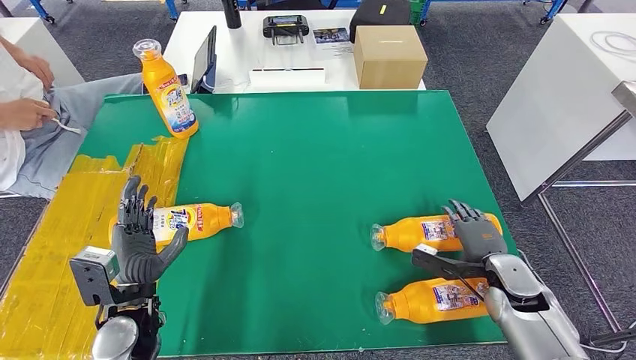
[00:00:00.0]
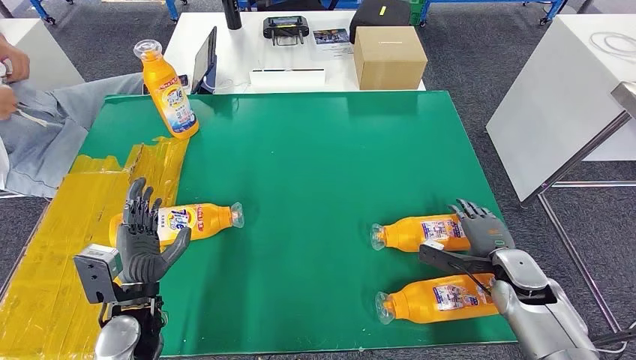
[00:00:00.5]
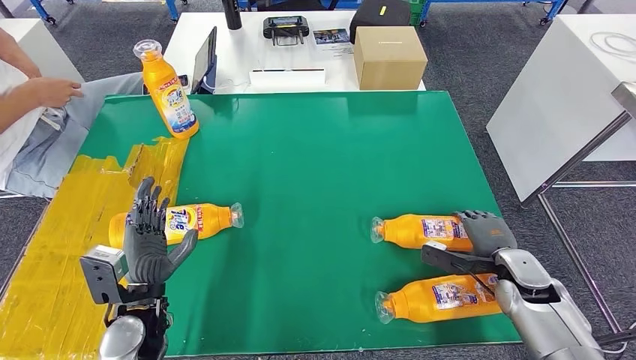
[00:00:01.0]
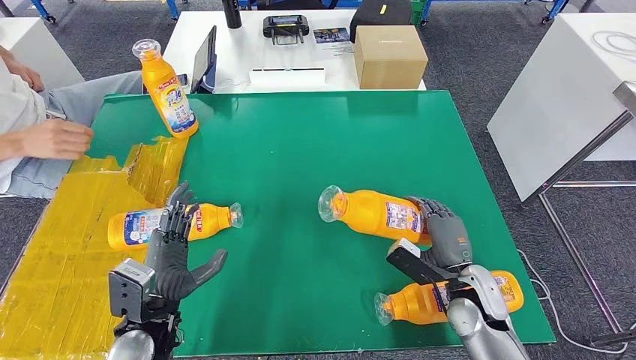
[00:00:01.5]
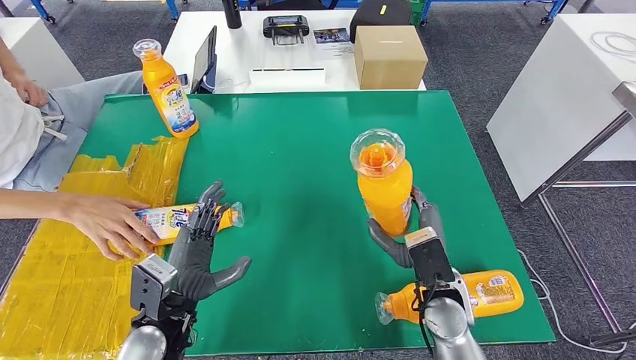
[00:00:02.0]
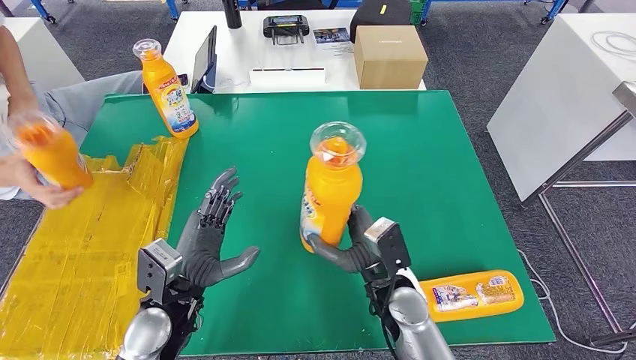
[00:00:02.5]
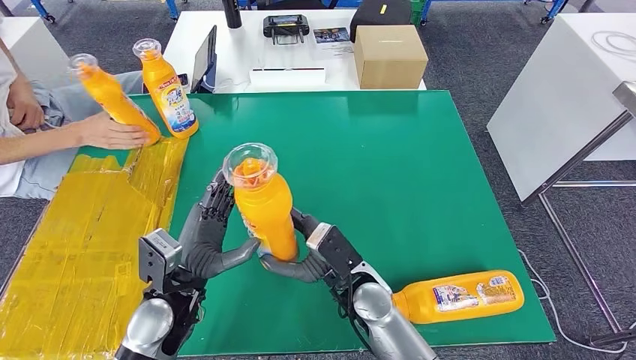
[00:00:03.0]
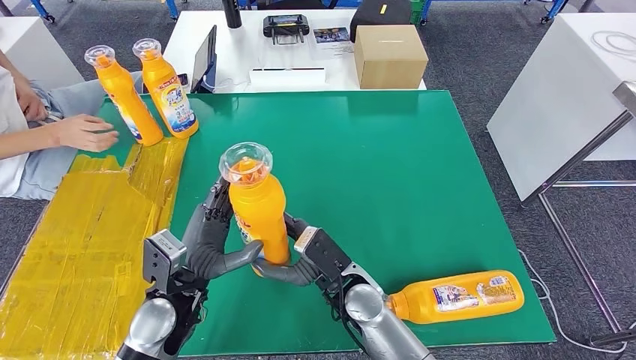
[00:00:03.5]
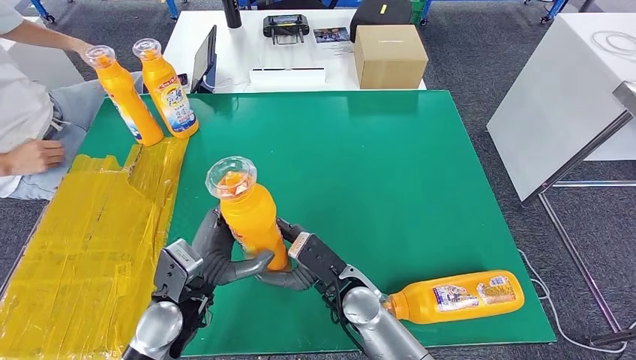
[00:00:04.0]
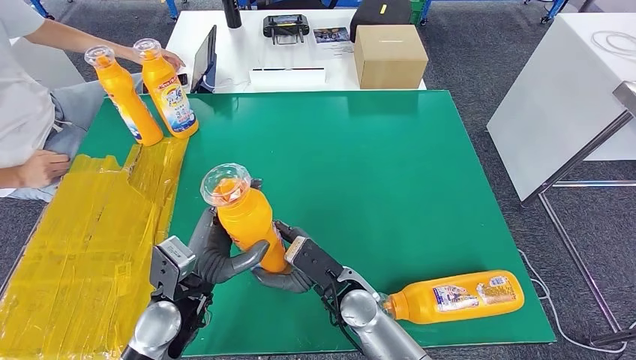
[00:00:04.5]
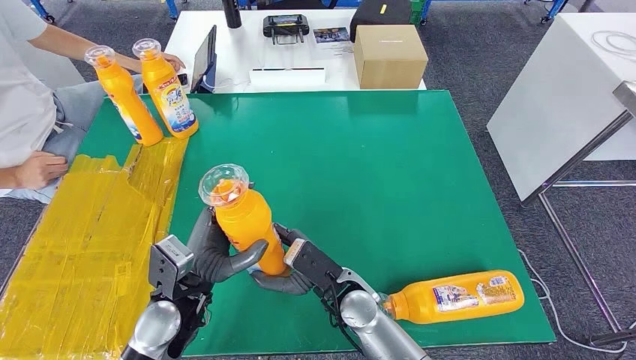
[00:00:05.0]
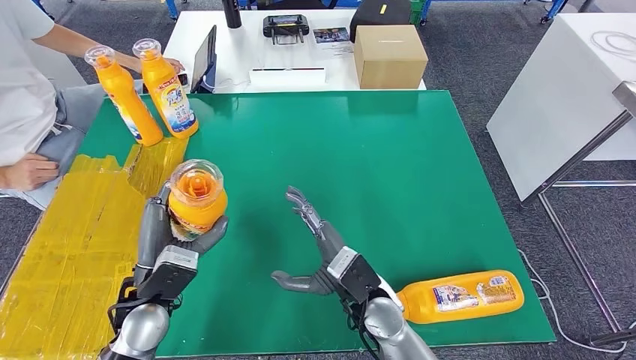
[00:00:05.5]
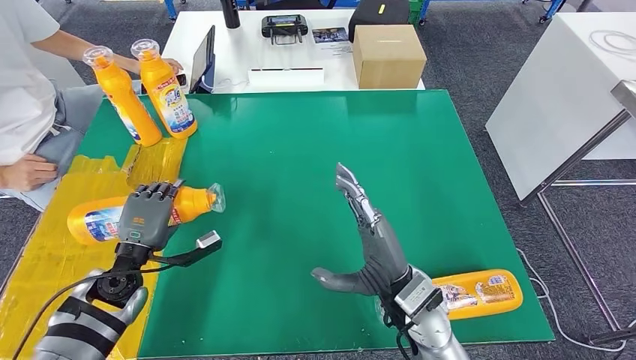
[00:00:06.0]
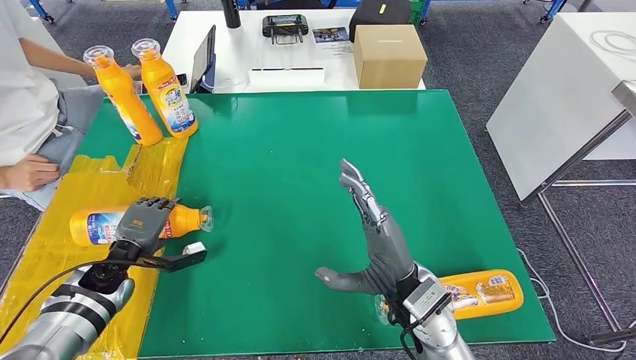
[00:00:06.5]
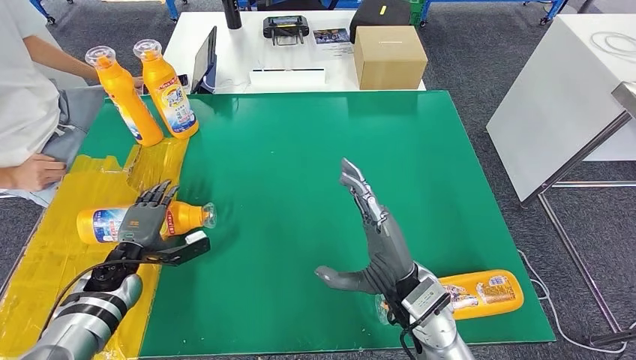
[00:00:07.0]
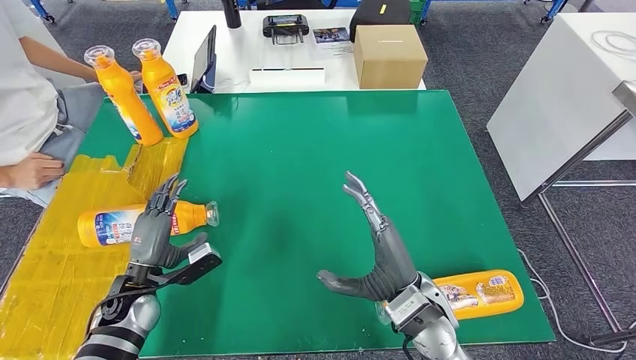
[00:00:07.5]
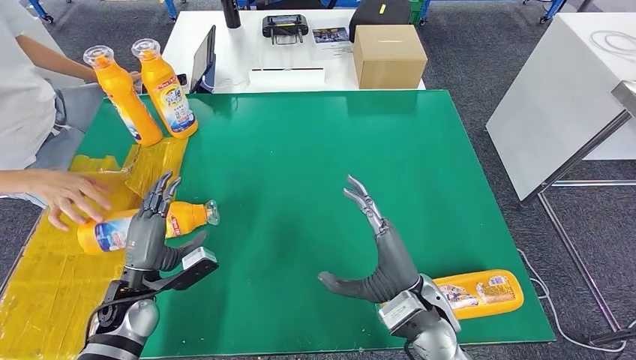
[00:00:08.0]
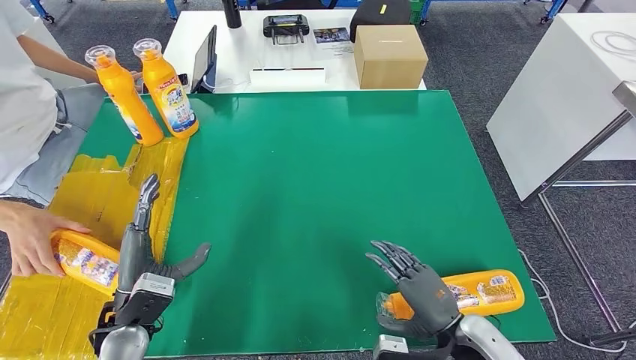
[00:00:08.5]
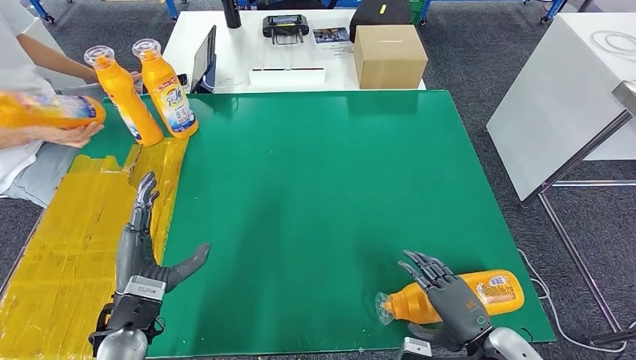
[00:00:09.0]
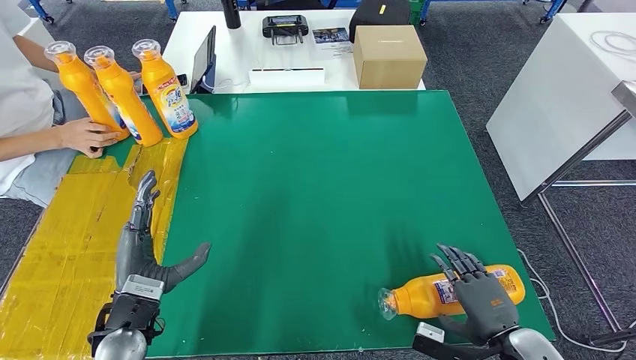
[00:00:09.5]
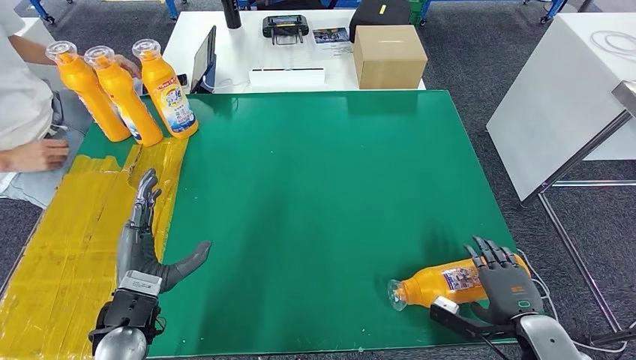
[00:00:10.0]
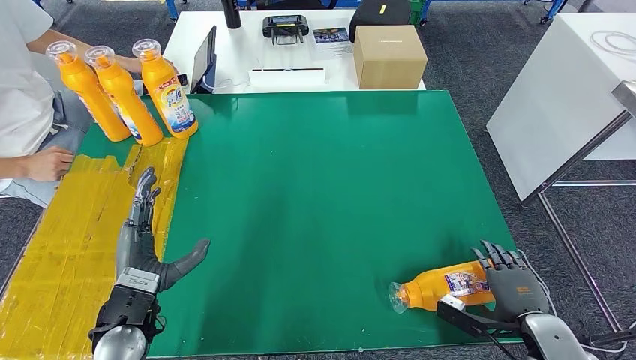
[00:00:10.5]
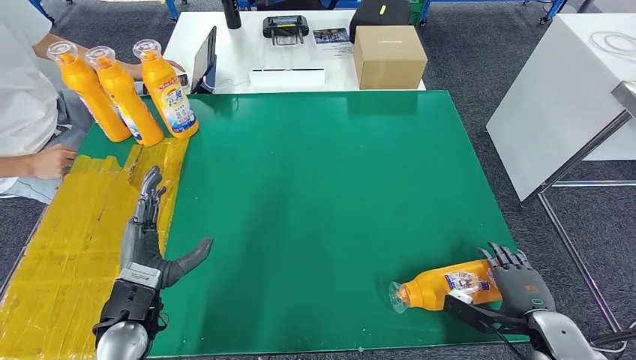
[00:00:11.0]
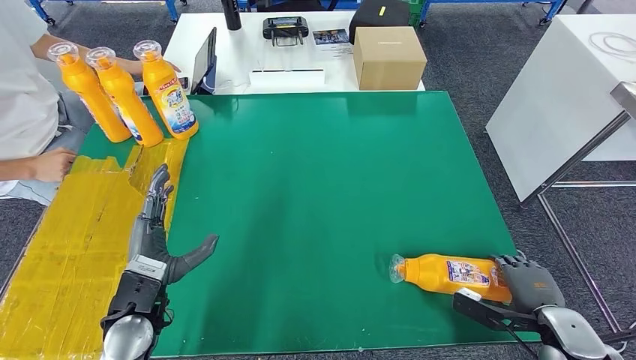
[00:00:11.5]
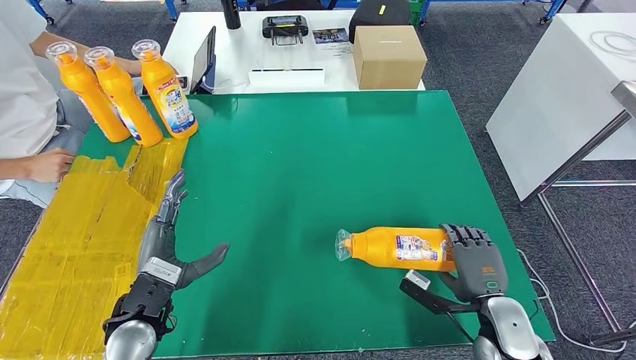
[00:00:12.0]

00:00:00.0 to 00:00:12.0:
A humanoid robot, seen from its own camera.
Step, 00:00:00.0 to 00:00:02.0: Pick up the fast-moving consumer goods bottle from the table.
Step, 00:00:02.5 to 00:00:07.5: Flip the fast-moving consumer goods bottle to the front side.
00:00:08.0 to 00:00:10.0: The right hand heads to the right, covering approximately 20 cm. The left hand shifts about 10 cm upward and backward.
00:00:10.0 to 00:00:12.0: The right hand changes place by roughly 5 cm.

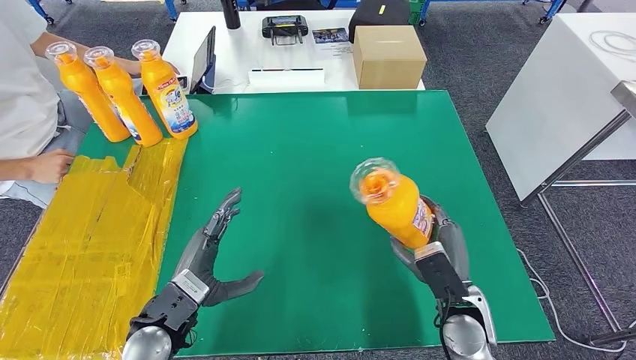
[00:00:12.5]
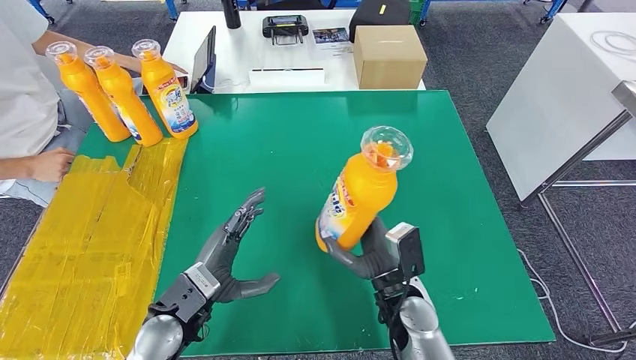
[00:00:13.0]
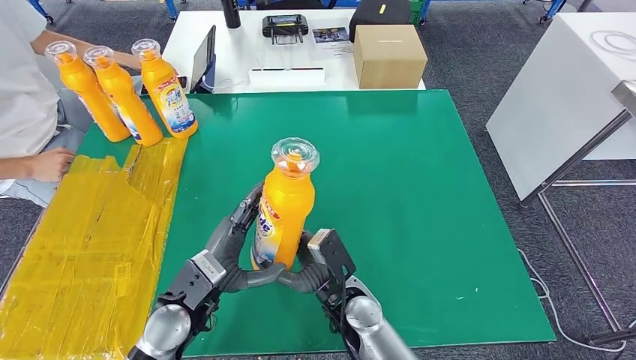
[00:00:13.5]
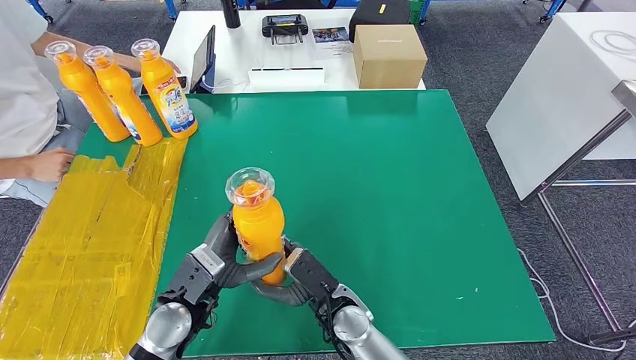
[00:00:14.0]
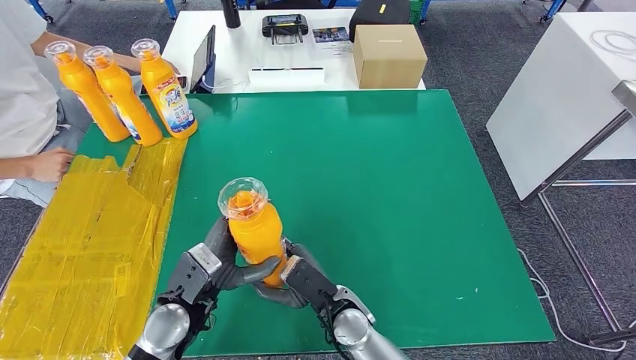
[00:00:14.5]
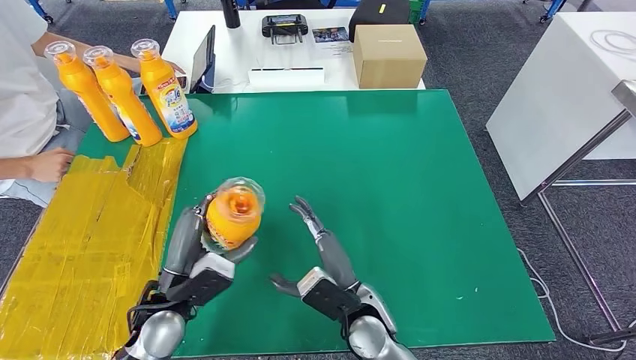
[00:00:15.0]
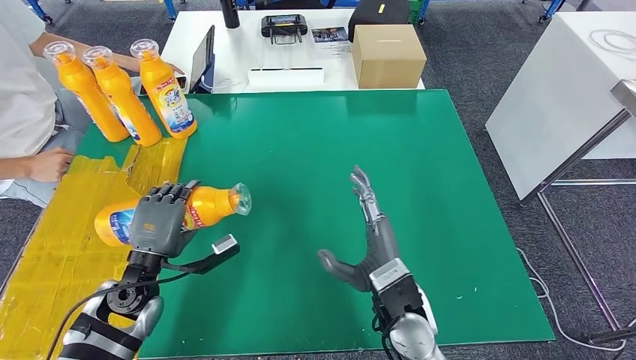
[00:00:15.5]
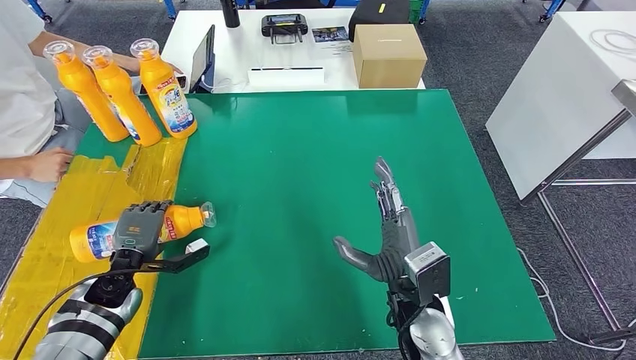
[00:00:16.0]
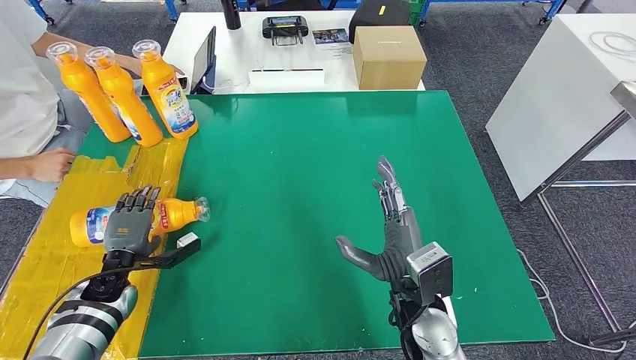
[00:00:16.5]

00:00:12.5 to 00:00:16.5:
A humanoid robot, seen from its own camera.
Step, 00:00:14.0 to 00:00:16.5: Flip the fast-moving consumer goods bottle to the front side.
00:00:12.5 to 00:00:14.5: The right hand moves to the left, approximately 20 cm.
00:00:14.5 to 00:00:16.5: The left hand goes about 20 cm to the left, downward and forward; the right hand heads to the right and upward, covering roughly 15 cm.
